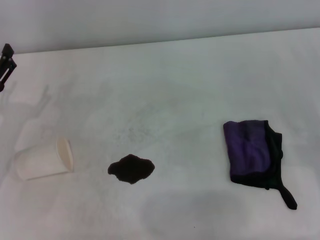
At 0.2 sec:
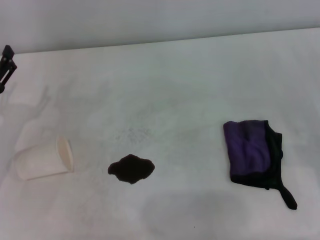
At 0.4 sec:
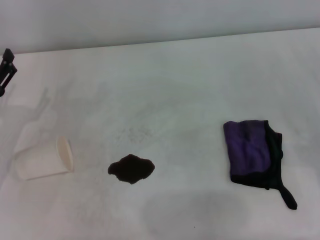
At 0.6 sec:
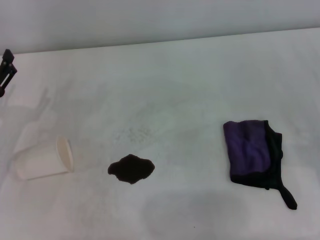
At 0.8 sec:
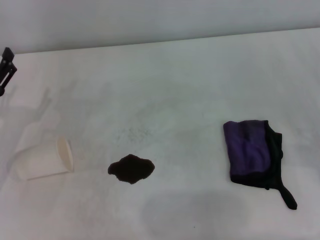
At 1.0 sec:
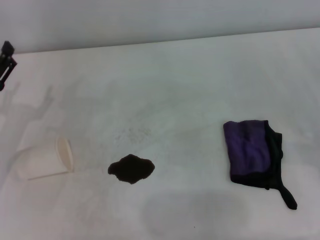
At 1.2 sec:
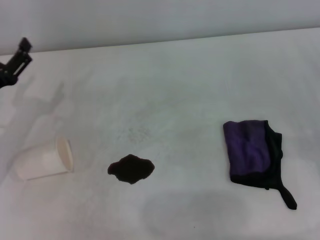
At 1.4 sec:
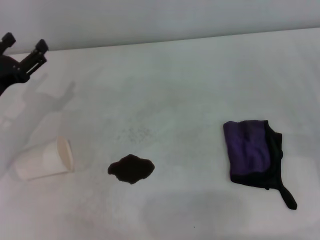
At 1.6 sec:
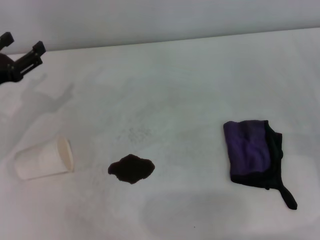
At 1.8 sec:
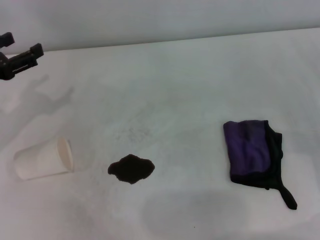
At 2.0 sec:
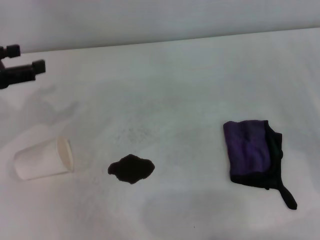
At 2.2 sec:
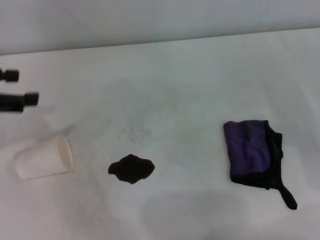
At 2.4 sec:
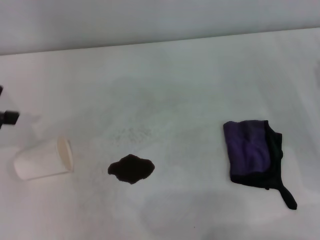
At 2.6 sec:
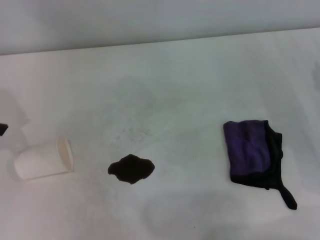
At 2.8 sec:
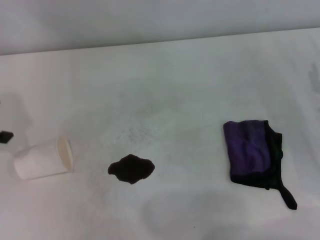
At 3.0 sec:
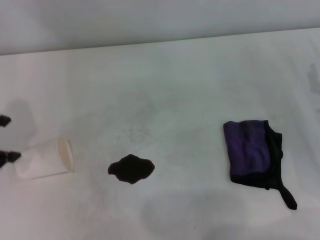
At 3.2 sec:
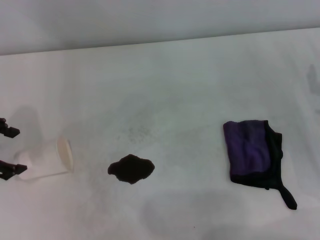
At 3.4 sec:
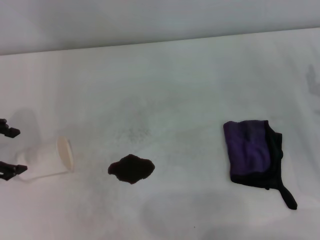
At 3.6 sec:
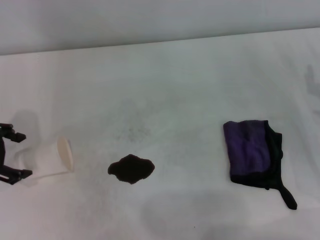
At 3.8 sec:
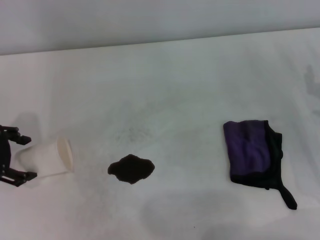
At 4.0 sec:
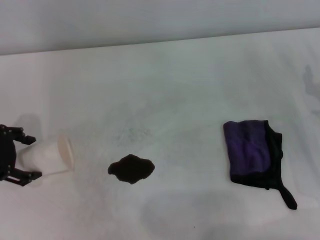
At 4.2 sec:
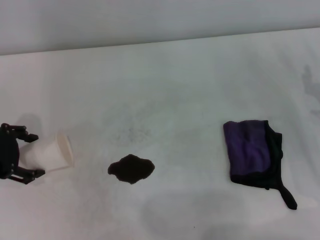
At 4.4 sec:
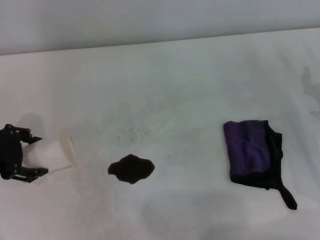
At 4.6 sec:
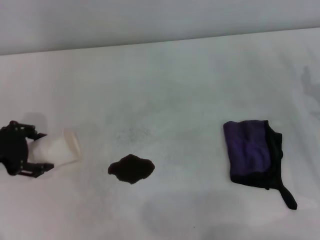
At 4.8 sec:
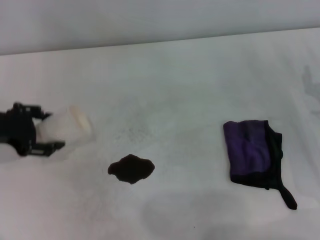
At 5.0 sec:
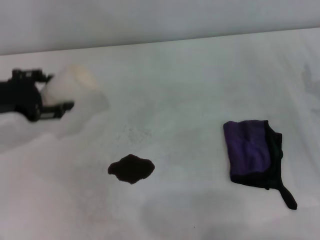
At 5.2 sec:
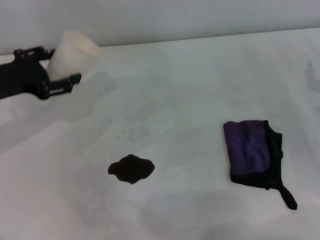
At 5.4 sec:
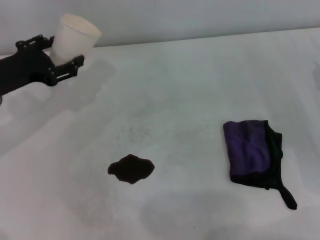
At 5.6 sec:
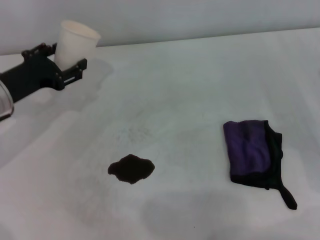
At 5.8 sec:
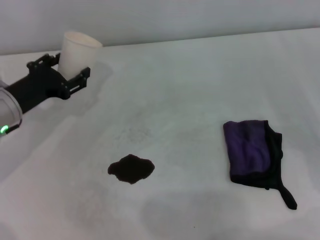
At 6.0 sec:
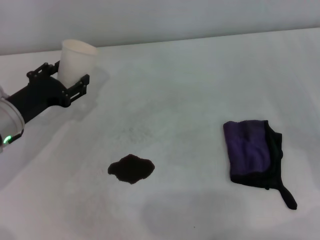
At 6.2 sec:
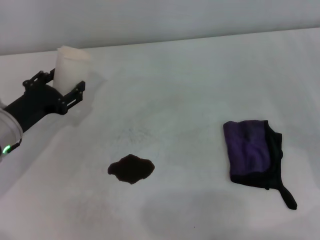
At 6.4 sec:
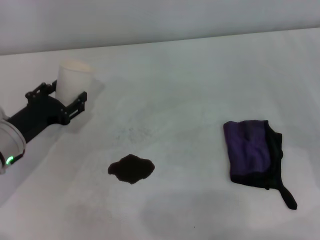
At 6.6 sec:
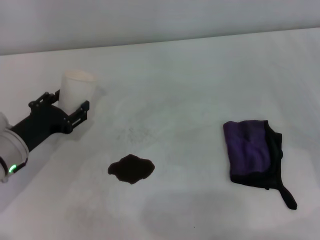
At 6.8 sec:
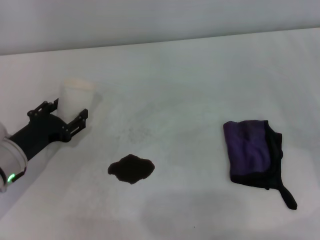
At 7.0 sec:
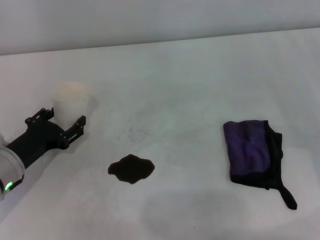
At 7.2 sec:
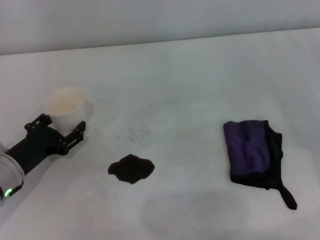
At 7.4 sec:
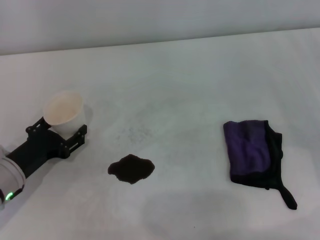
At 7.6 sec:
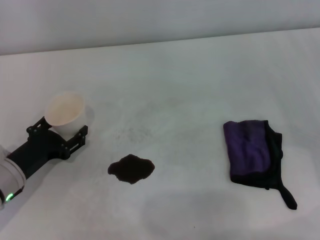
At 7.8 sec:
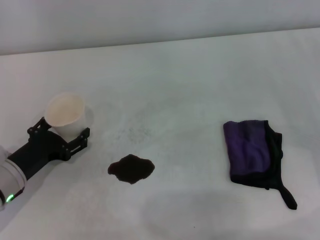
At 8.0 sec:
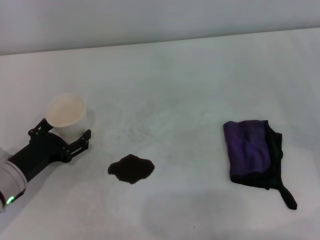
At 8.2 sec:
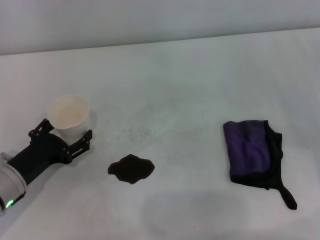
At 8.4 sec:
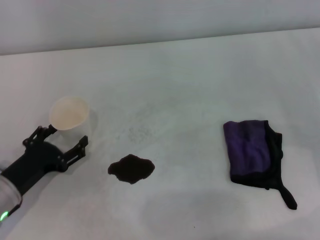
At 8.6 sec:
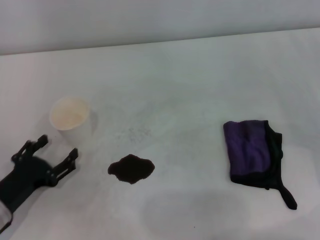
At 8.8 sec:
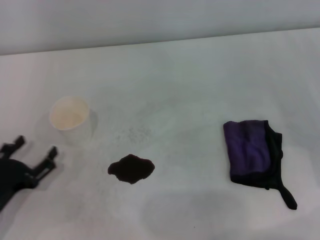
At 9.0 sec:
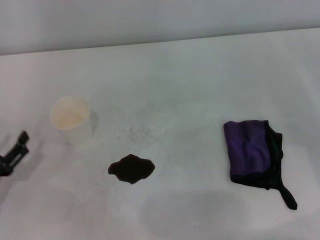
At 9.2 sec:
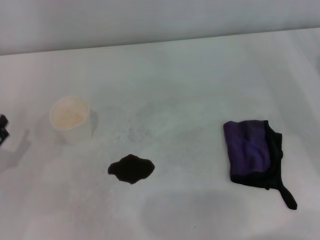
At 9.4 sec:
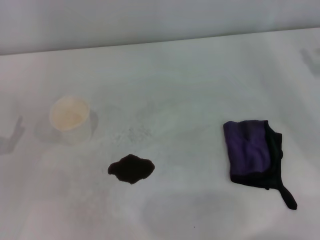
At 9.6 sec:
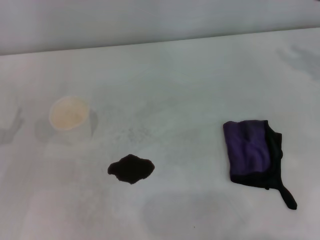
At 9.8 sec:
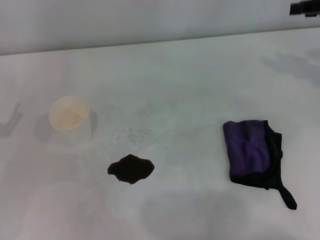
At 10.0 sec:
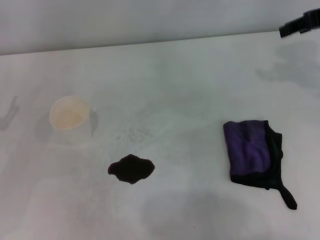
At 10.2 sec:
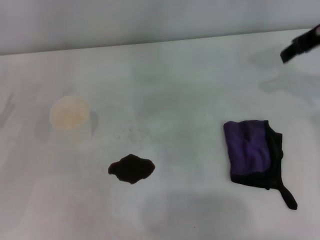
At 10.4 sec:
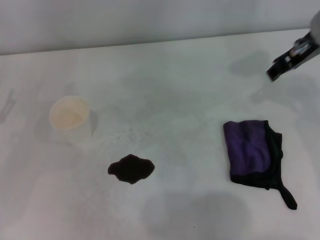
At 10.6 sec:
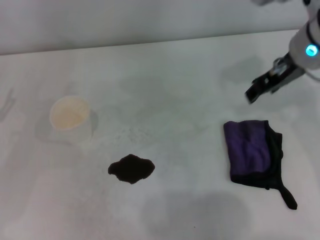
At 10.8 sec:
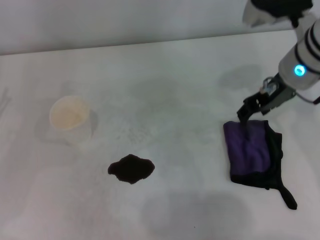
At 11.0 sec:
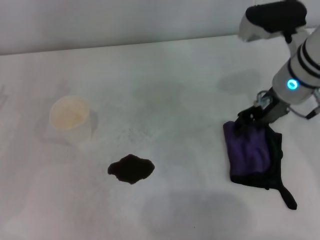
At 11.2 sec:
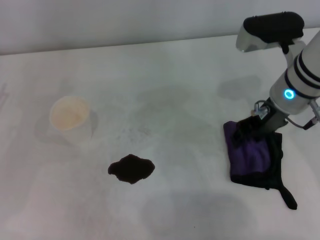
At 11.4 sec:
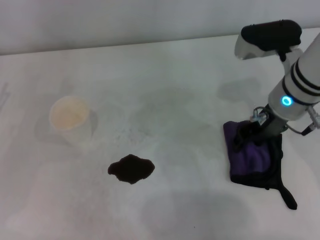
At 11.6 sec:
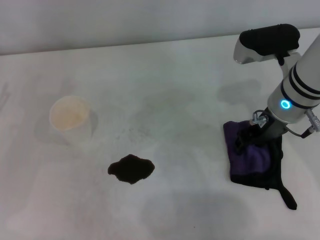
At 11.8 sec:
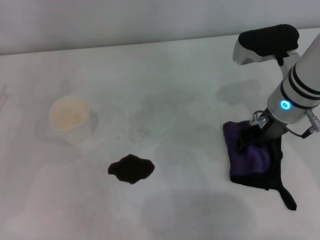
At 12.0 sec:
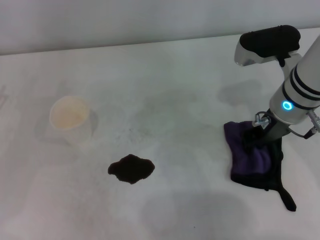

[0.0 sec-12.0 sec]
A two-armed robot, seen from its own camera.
Step, 0.0 sec to 4.4 sec: Grasp the paper cup with the left gripper.
Step, 4.6 sec to 8.2 sec: Stand the paper cup upright with the left gripper.
0.0 sec to 1.6 sec: The left gripper changes place by roughly 5 cm.
1.6 sec to 3.0 sec: The left gripper goes roughly 10 cm upward.
3.0 sec to 4.4 sec: The left gripper moves downward, roughly 10 cm.
4.4 sec to 6.0 sec: The left gripper shifts about 10 cm downward and to the right, and closes.
6.0 sec to 7.6 sec: The left gripper is displaced backward and downward by approximately 10 cm.
7.6 sec to 9.0 sec: The left gripper is displaced backward and to the left by approximately 10 cm, and opens up.
9.0 sec to 10.4 sec: The left gripper is displaced forward and upward by approximately 10 cm. Meanwhile the right gripper is displaced upward, to the left and forward by approximately 25 cm.
10.4 sec to 12.0 sec: The right gripper travels downward by about 10 cm, and closes up.

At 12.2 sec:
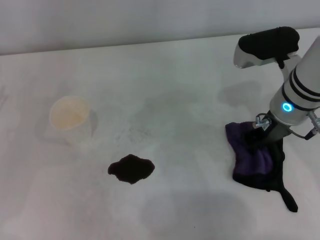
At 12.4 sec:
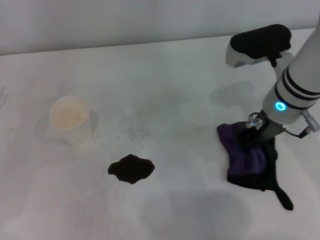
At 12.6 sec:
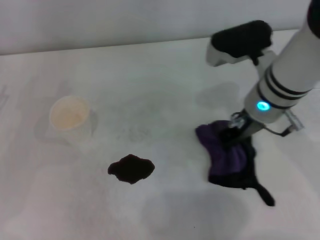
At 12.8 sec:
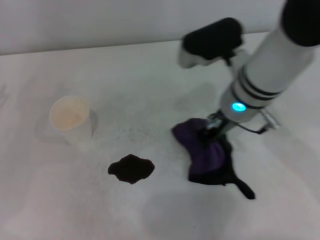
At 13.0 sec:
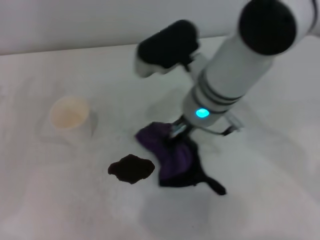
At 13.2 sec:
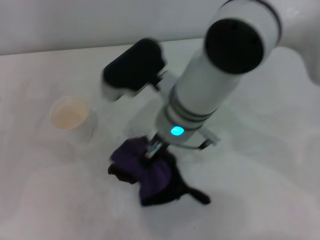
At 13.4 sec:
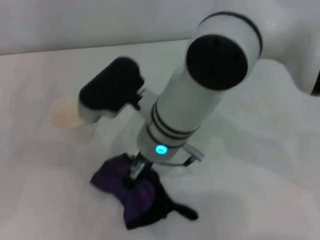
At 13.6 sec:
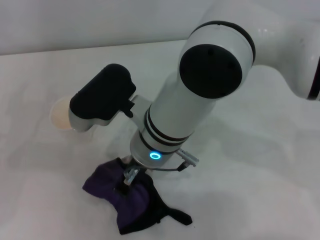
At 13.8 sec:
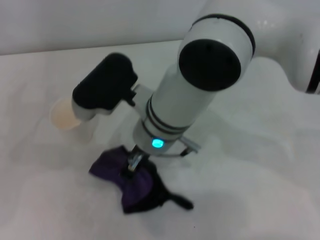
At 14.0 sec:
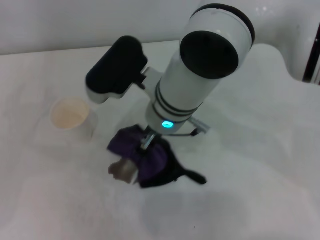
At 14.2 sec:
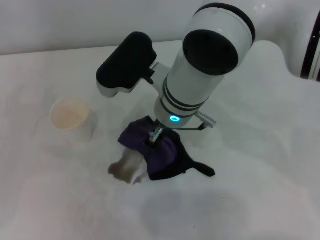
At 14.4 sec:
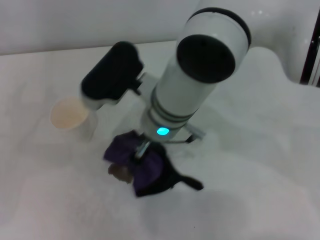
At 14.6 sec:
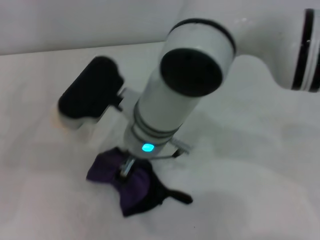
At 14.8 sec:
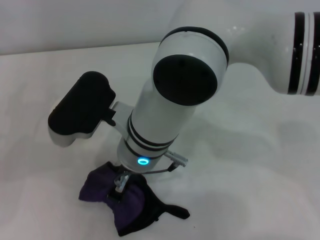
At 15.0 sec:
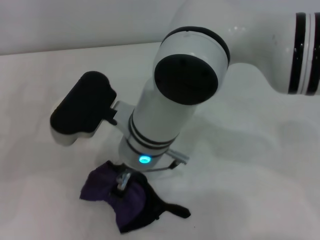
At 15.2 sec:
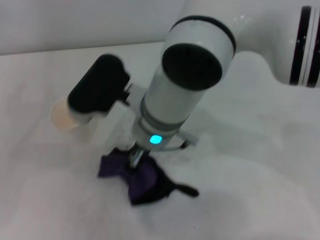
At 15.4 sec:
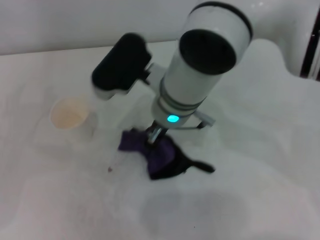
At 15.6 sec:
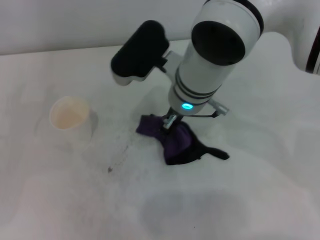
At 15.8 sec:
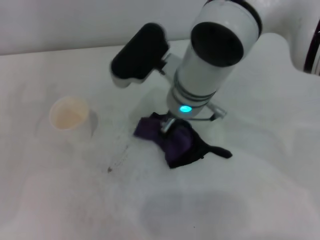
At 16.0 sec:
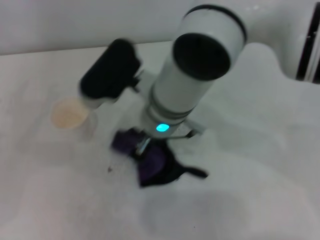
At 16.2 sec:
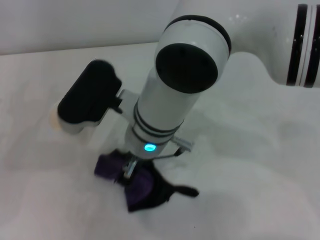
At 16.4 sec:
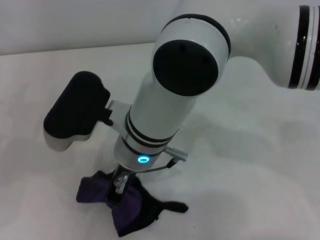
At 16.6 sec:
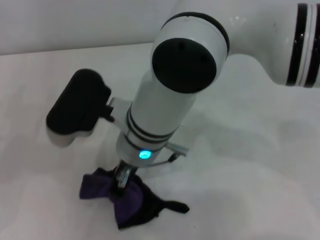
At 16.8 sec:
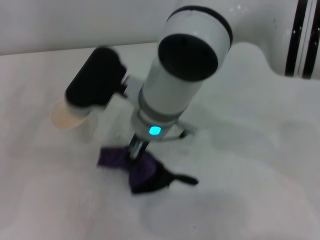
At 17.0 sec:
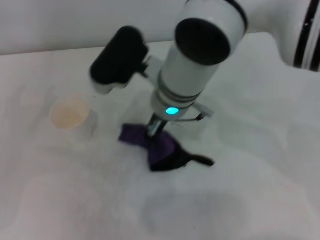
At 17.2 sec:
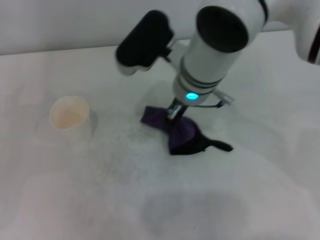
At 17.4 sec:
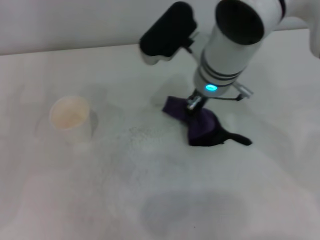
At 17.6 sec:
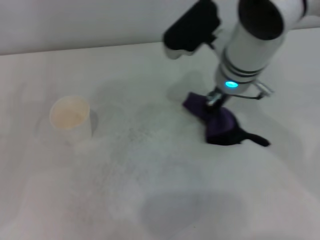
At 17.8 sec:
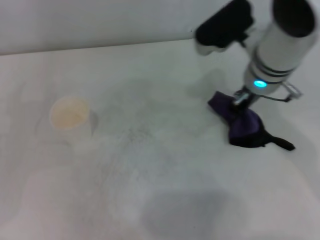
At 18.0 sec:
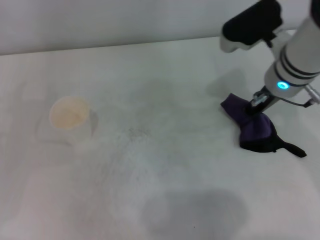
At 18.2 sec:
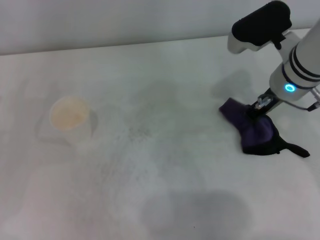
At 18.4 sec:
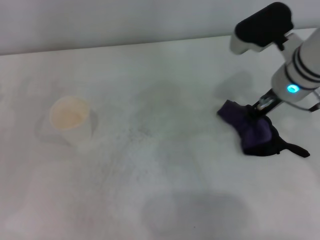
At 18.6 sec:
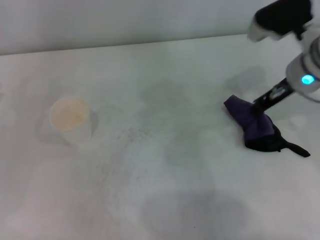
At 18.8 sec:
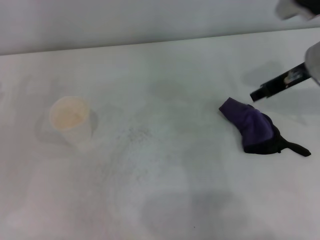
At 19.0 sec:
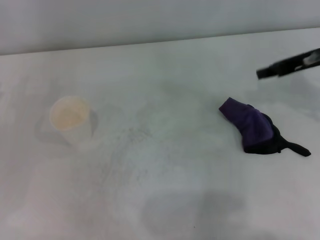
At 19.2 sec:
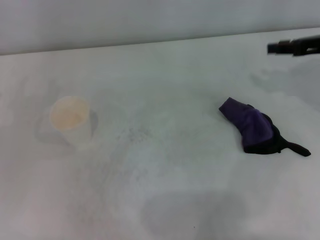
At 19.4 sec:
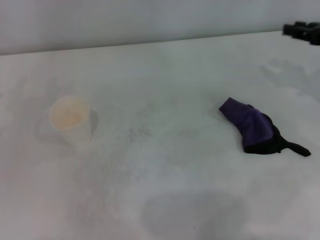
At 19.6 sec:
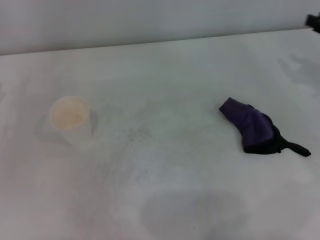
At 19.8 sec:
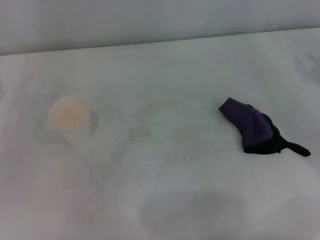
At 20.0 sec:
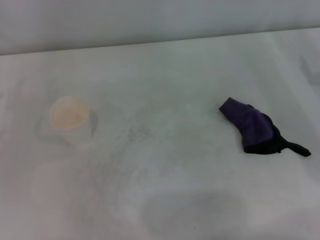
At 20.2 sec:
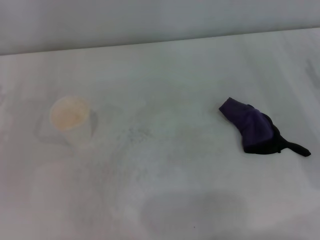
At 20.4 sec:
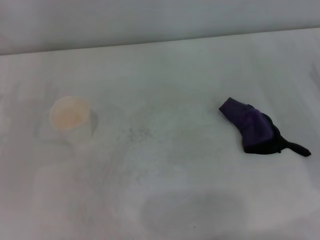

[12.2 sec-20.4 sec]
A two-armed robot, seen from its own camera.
Step, 12.4 sec to 17.6 sec: Wipe the stains off the table with the right gripper.
Step, 17.8 sec to 18.4 sec: Place the rag on the table with the right gripper.
12.2 sec to 13.8 sec: The right gripper heads to the left, covering about 20 cm.
17.2 sec to 18.8 sec: The right gripper moves to the right, approximately 20 cm, and opens up.
18.8 sec to 20.4 sec: The right gripper shifts some 20 cm to the right, downward and backward, and opens its fingers.
